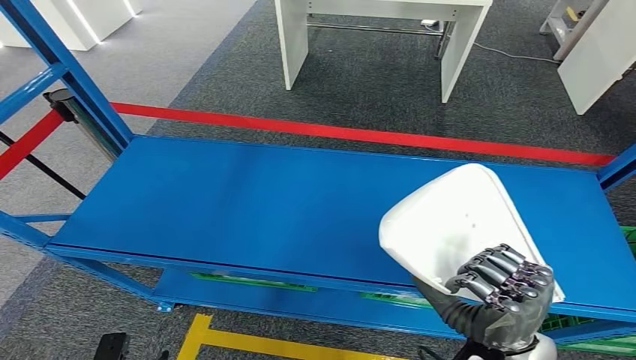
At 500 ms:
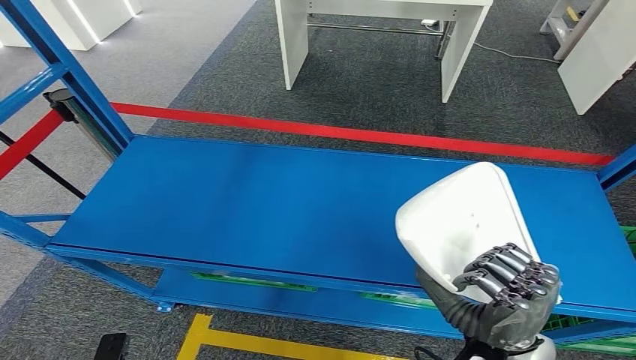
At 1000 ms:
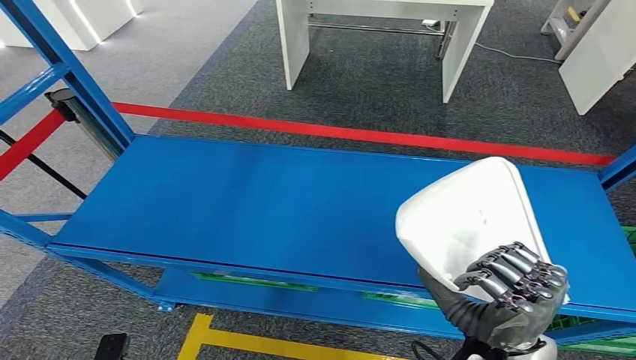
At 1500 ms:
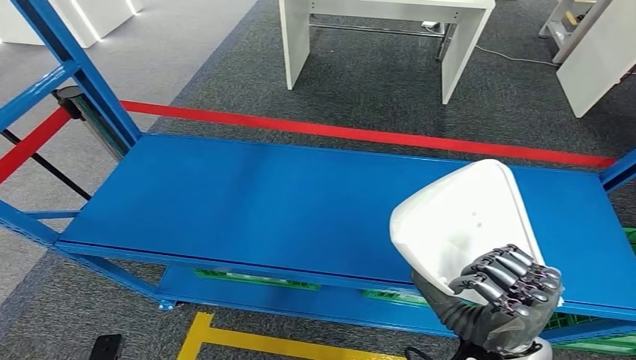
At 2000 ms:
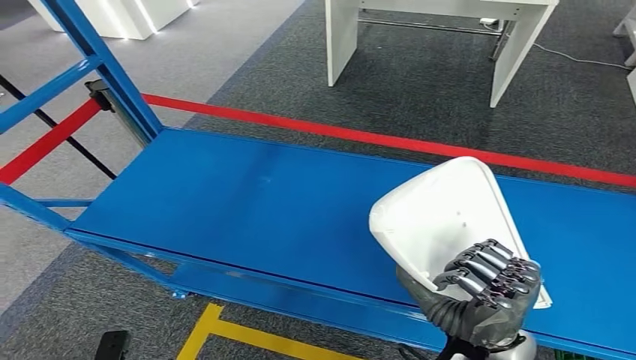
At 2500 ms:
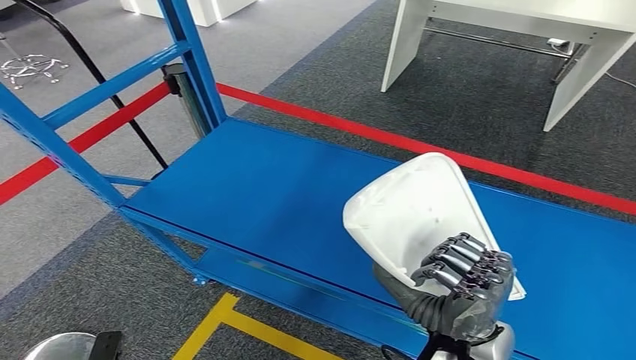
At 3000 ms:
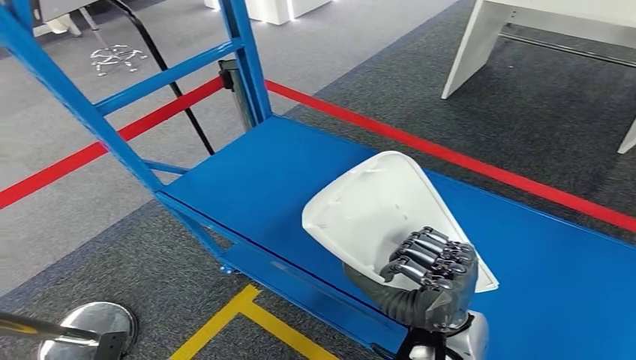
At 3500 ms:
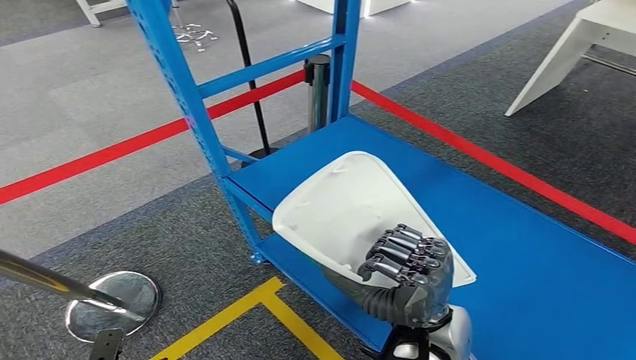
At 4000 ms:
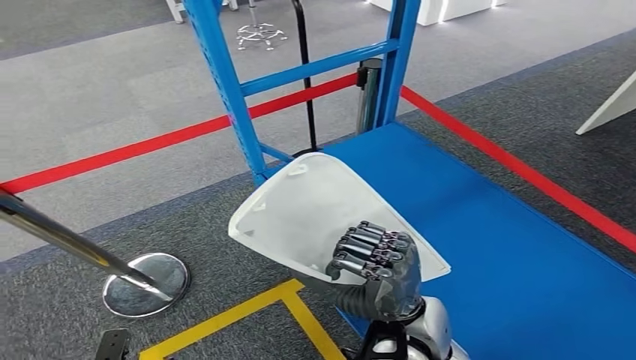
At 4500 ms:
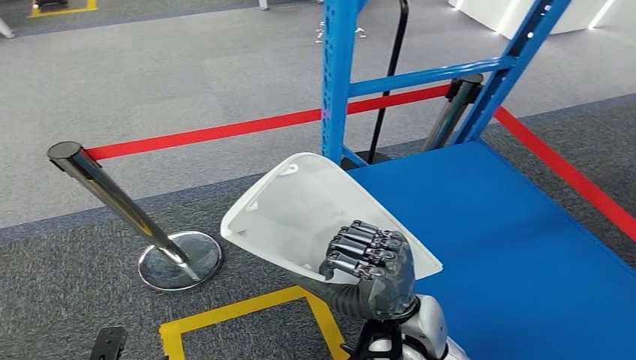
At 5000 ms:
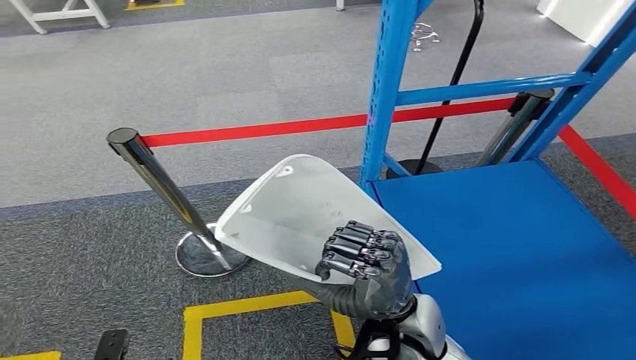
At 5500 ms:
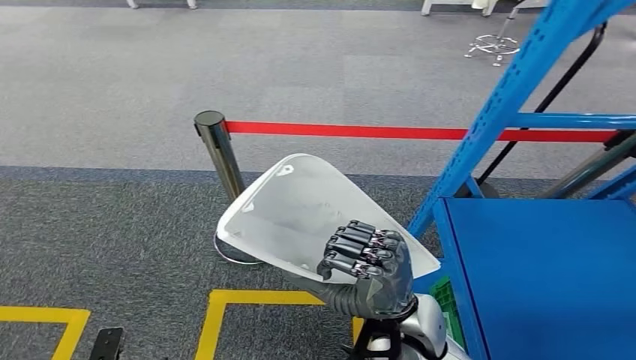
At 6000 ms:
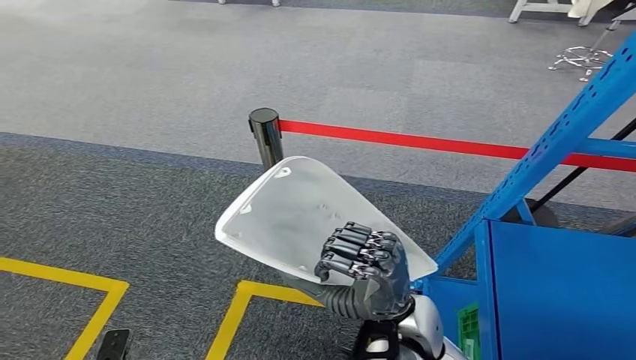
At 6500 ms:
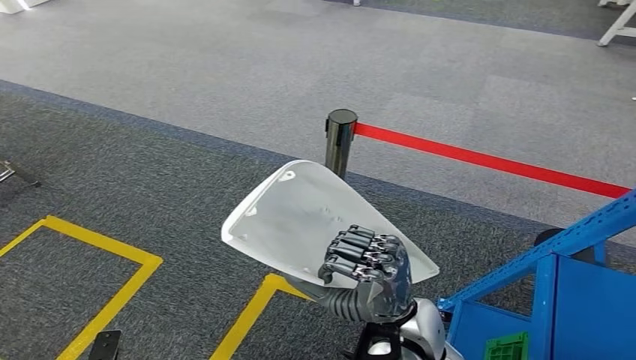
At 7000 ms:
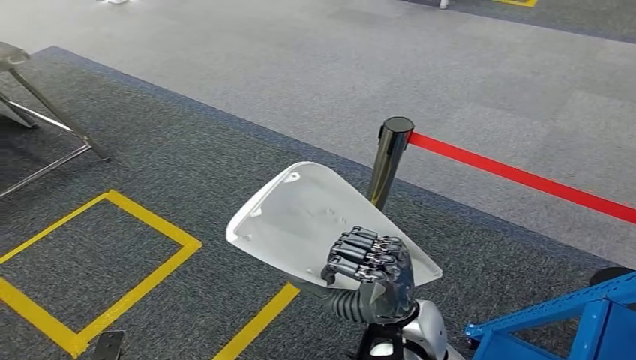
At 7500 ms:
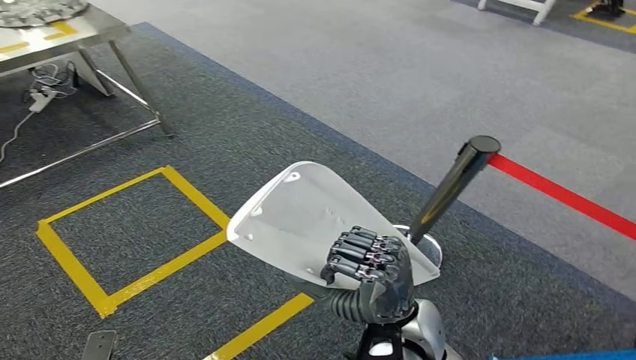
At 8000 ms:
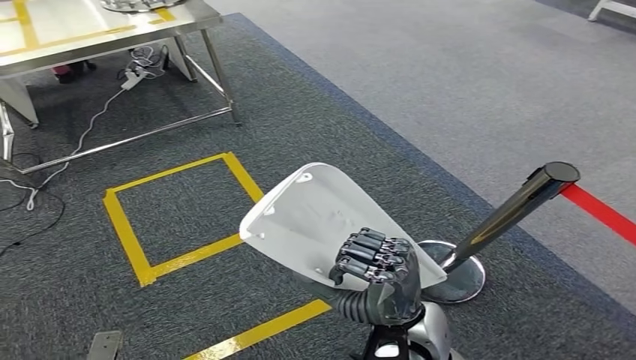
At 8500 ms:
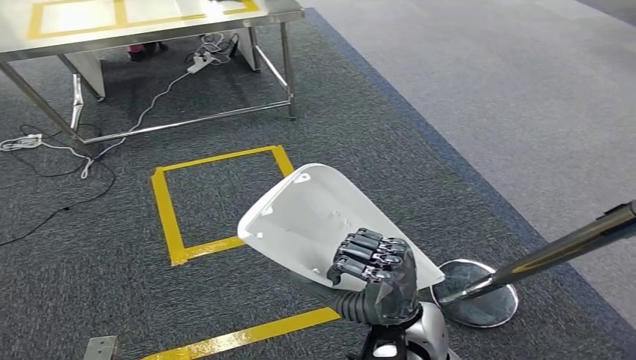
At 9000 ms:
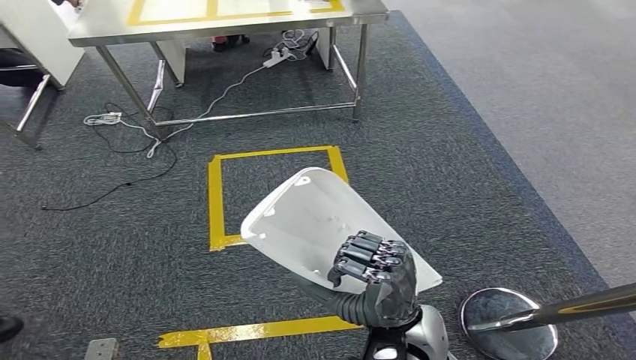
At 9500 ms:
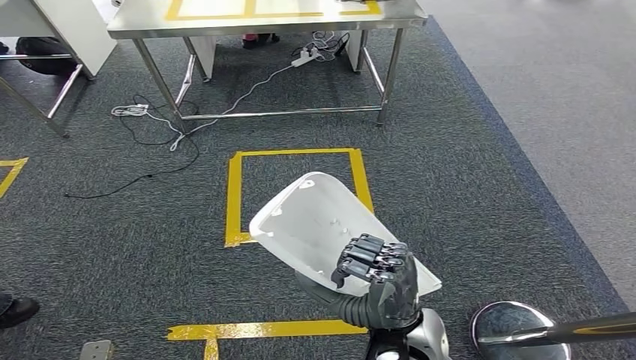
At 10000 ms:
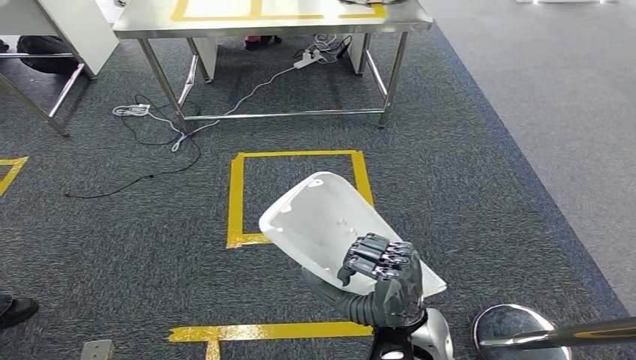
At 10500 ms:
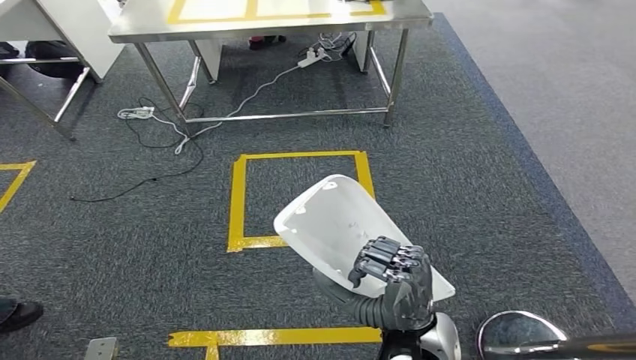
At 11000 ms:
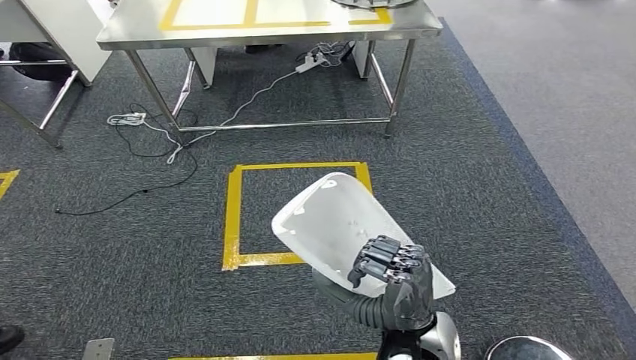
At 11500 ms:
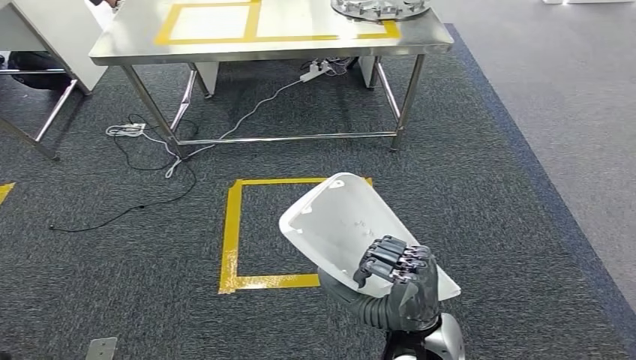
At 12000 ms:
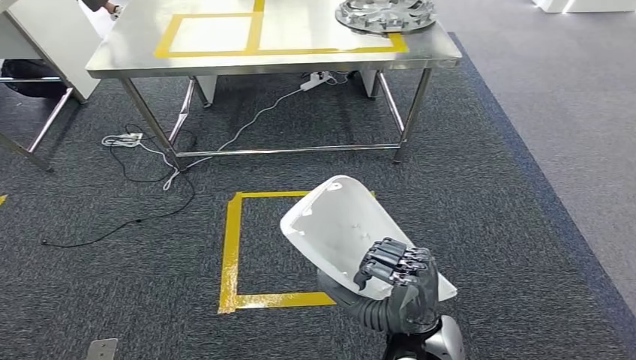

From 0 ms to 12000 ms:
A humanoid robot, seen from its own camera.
Step, from 2000 ms to 11000 ms: Move the small component to the workbench.

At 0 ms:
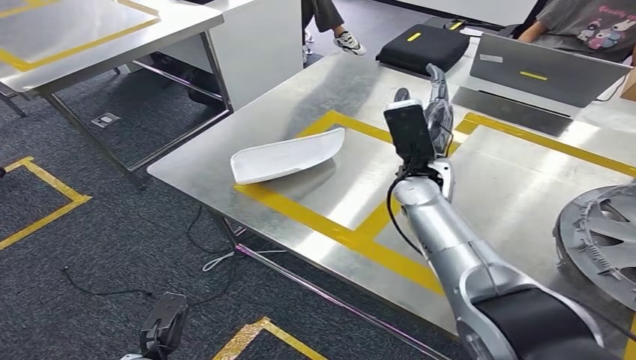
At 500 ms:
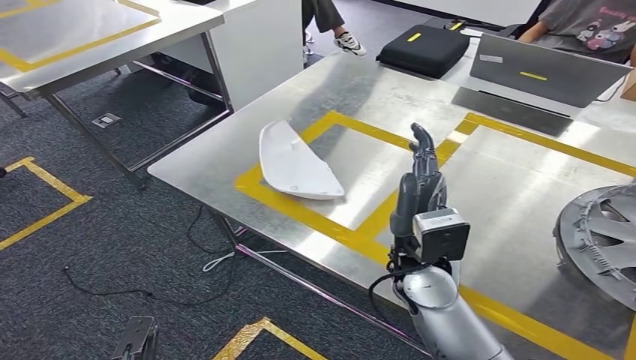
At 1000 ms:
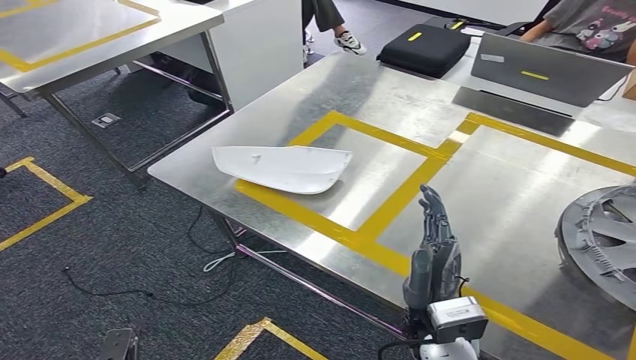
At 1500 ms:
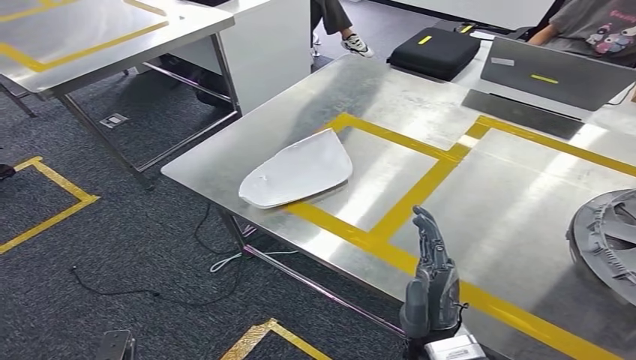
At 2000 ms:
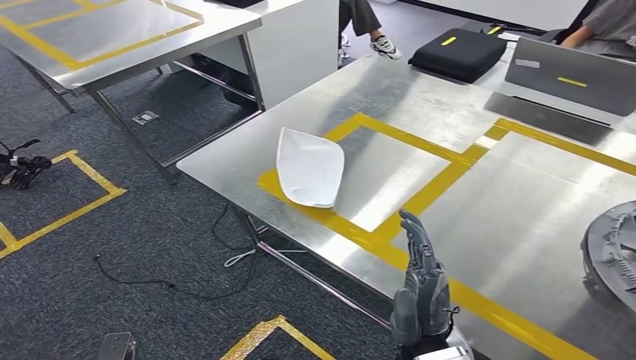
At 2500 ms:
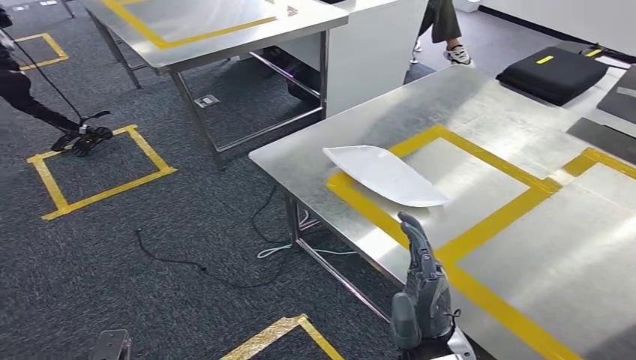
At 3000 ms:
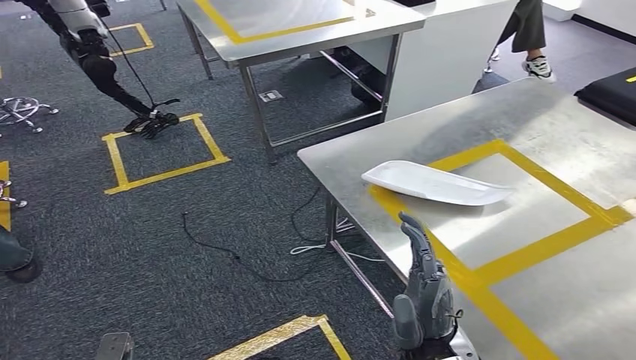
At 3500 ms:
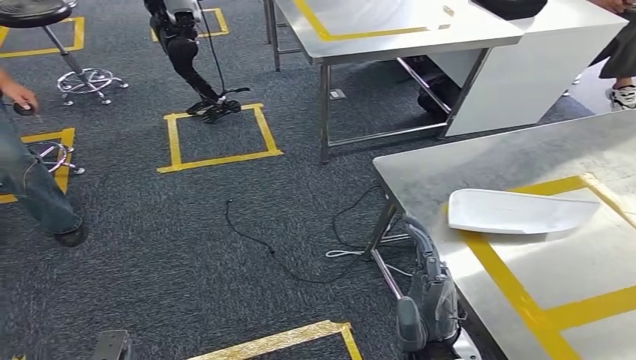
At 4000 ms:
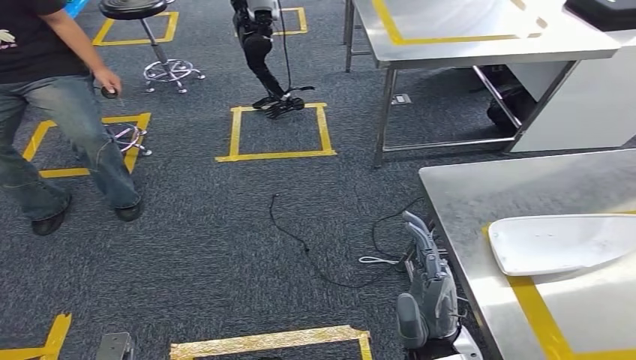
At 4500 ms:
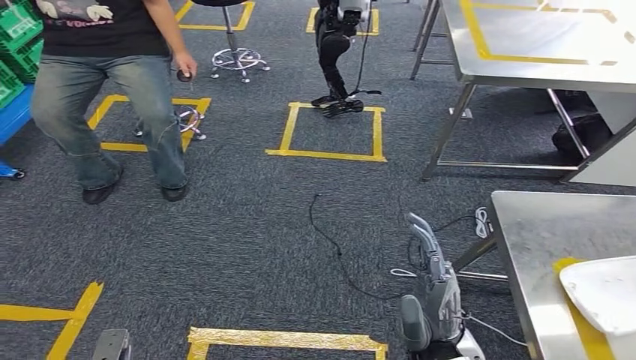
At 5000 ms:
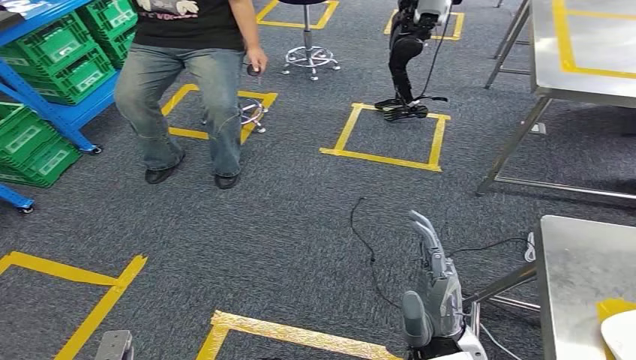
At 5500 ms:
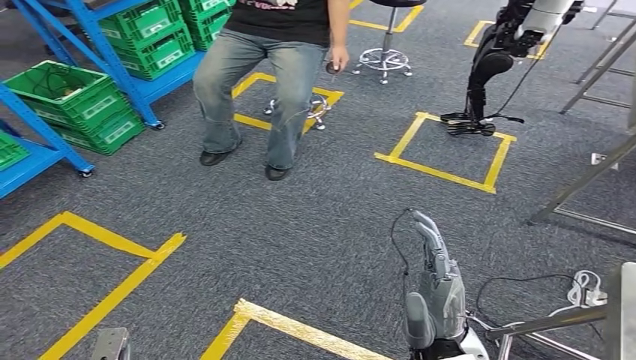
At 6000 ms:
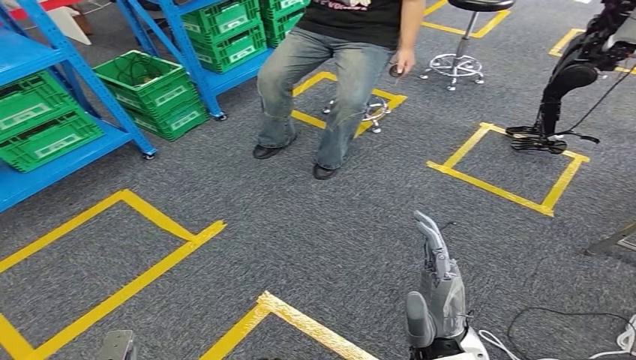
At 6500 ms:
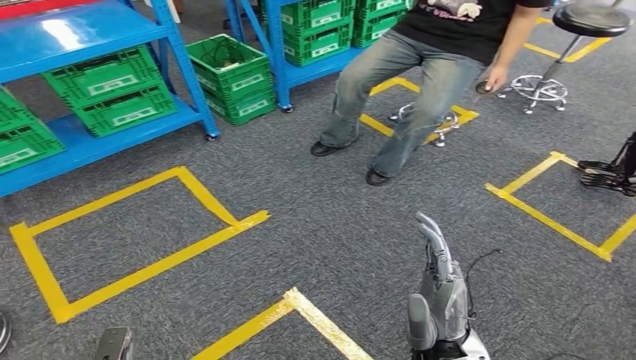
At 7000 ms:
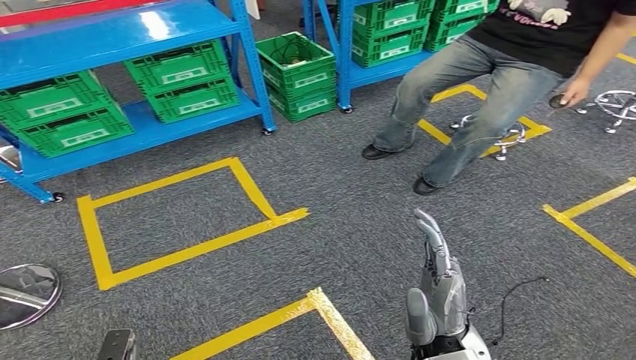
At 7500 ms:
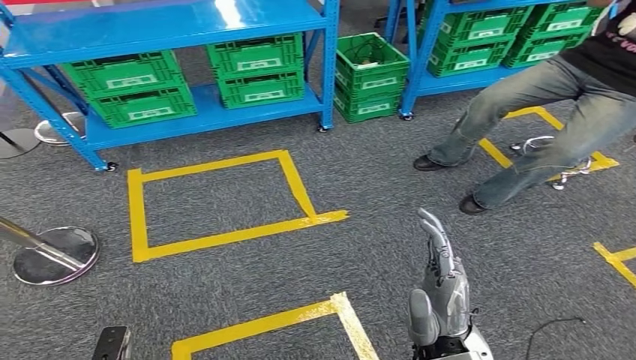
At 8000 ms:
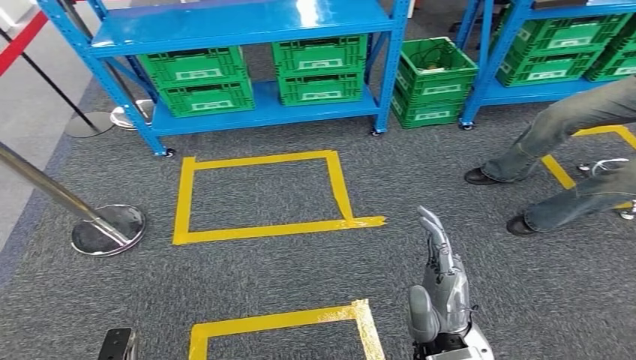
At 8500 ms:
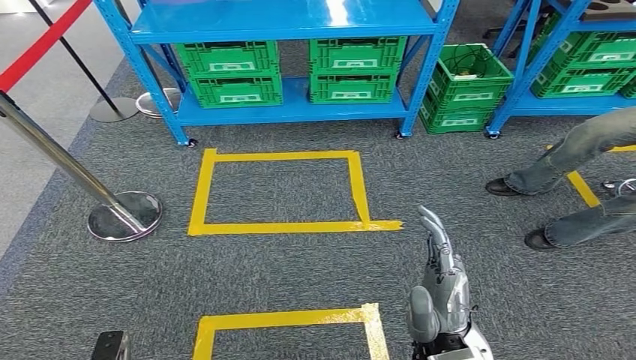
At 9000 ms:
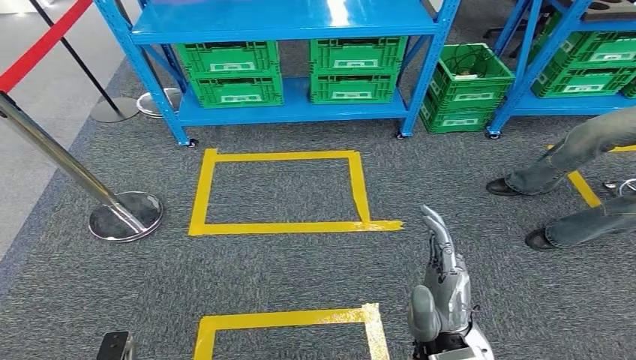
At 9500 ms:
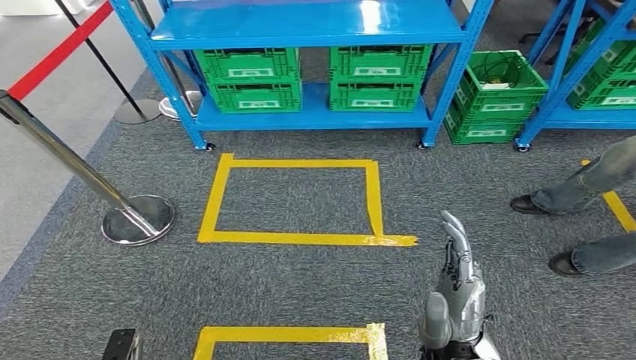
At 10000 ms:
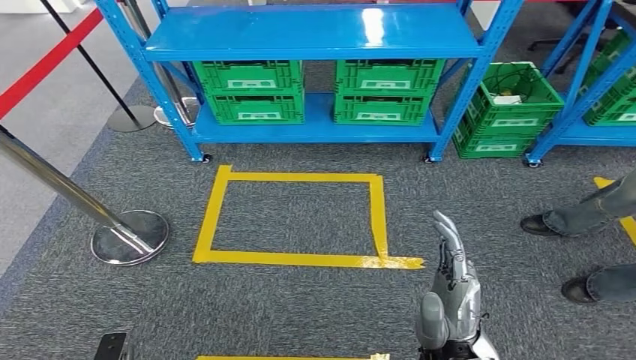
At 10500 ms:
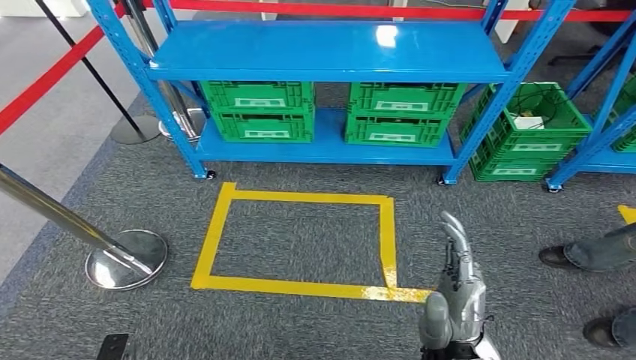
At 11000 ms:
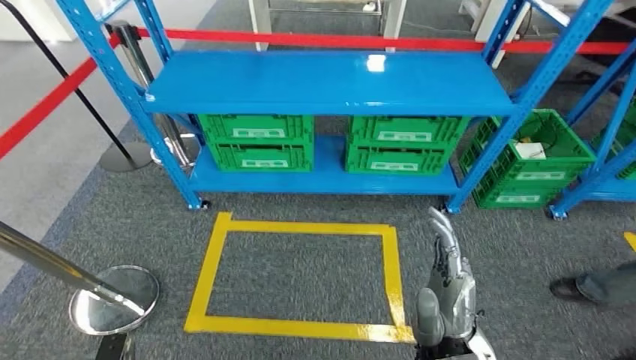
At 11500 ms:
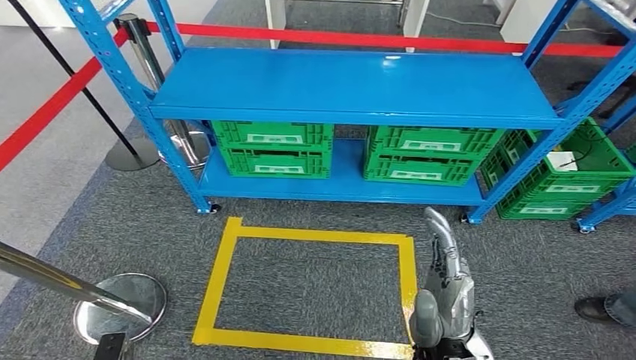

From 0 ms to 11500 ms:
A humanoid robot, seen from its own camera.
Step, from 0 ms to 6500 ms: Insert the small component into the corresponding slot on the workbench.